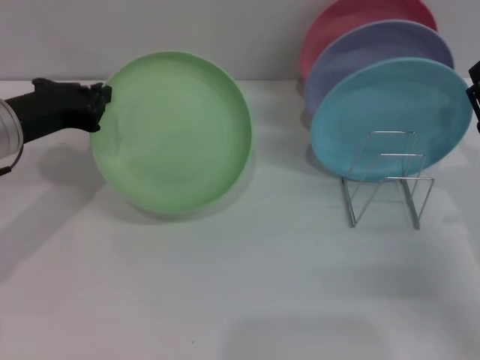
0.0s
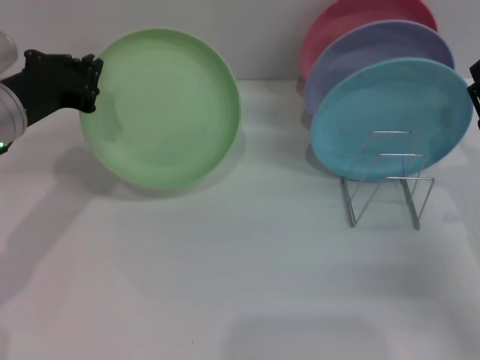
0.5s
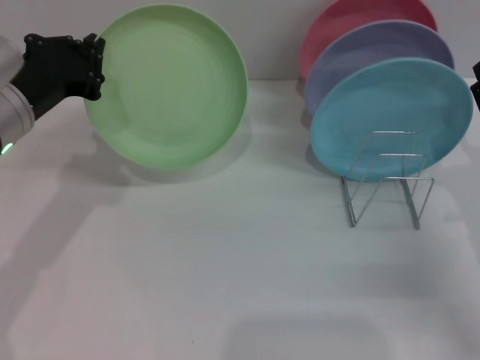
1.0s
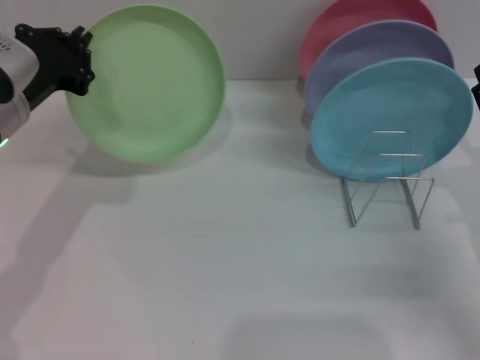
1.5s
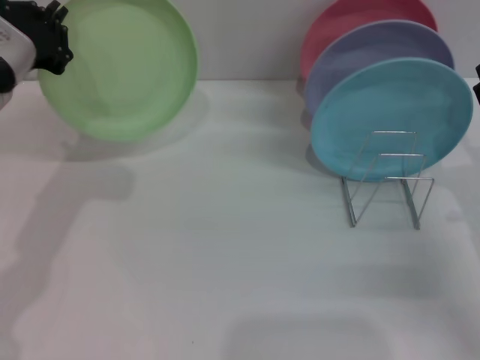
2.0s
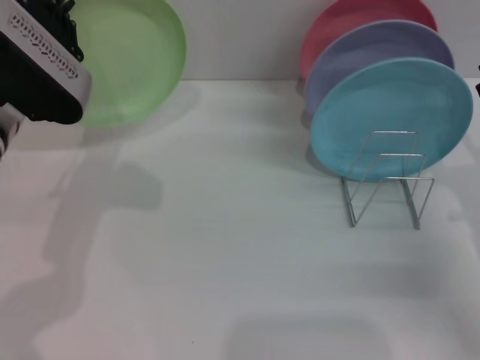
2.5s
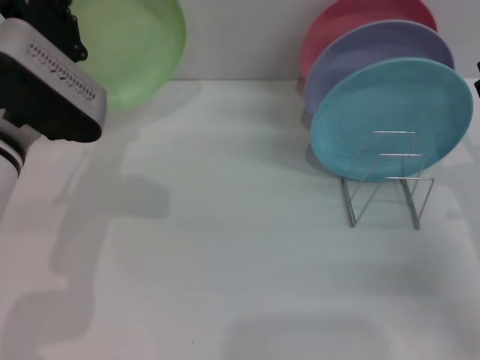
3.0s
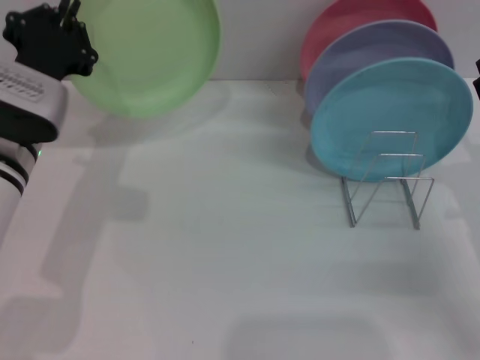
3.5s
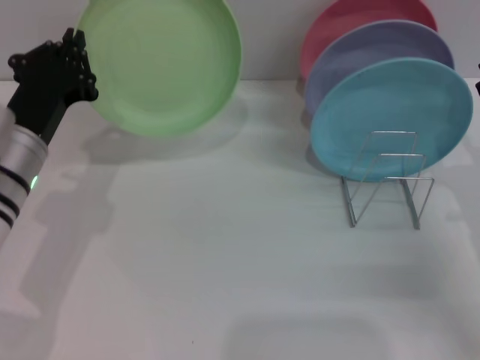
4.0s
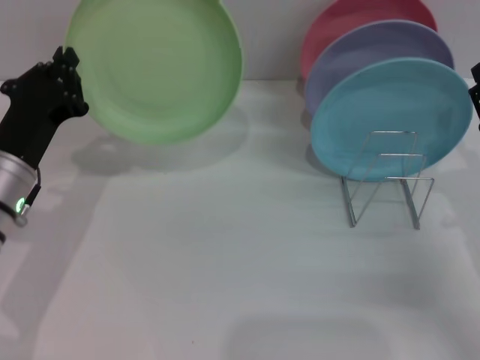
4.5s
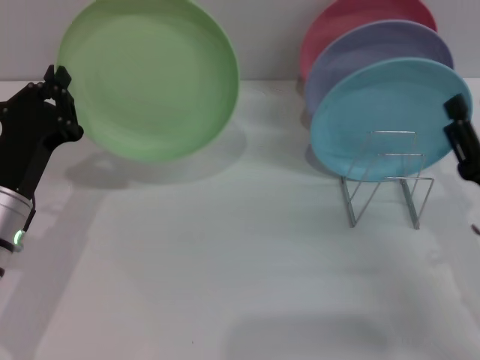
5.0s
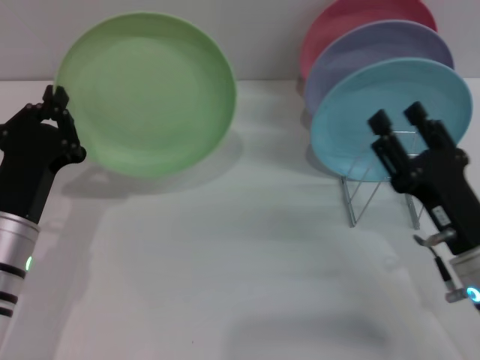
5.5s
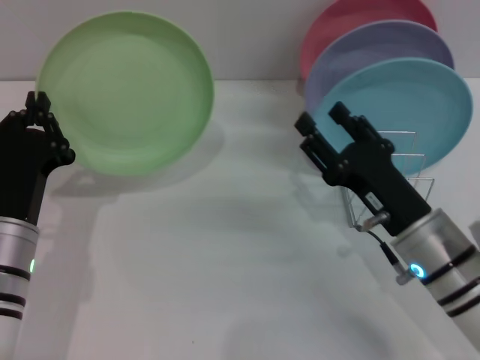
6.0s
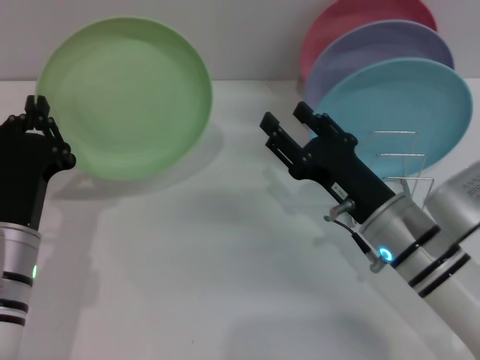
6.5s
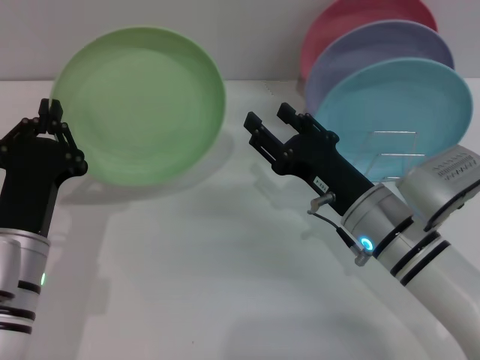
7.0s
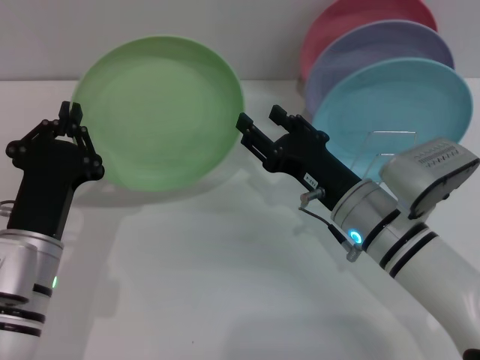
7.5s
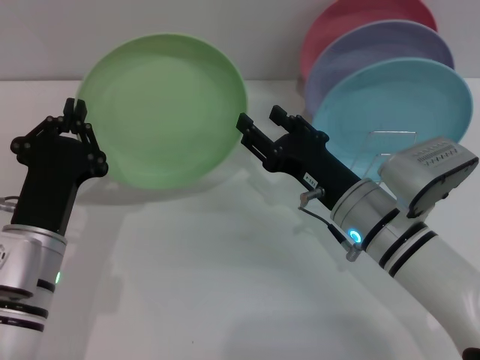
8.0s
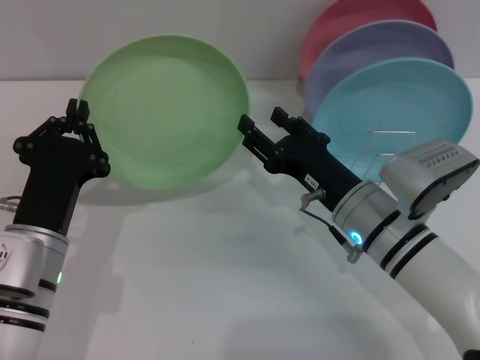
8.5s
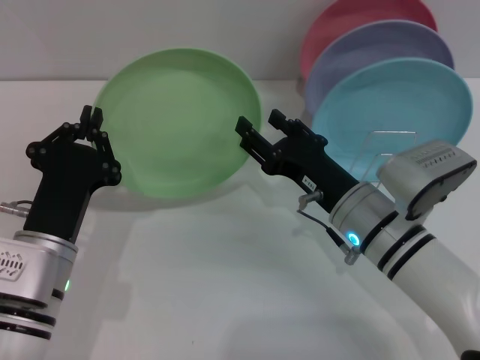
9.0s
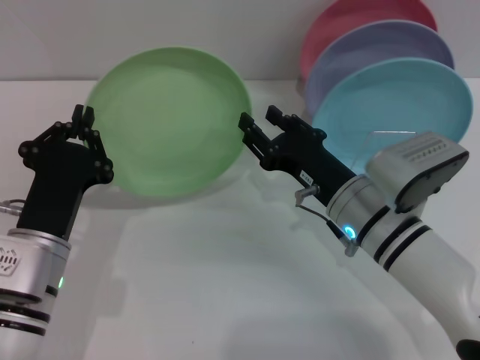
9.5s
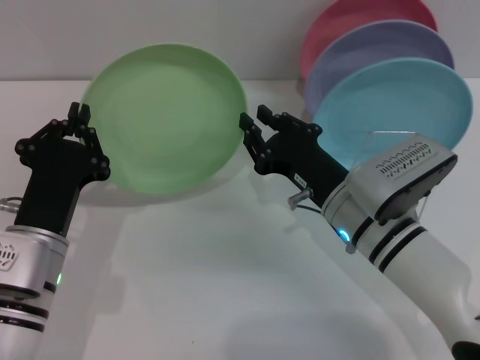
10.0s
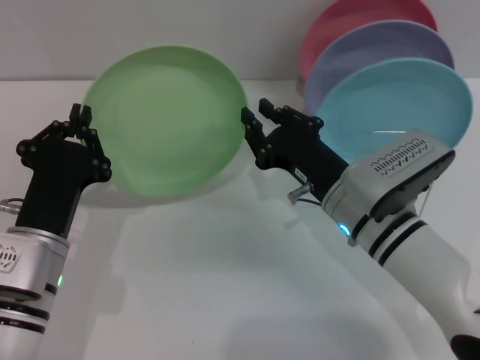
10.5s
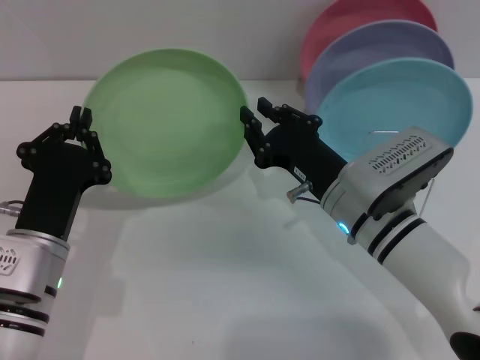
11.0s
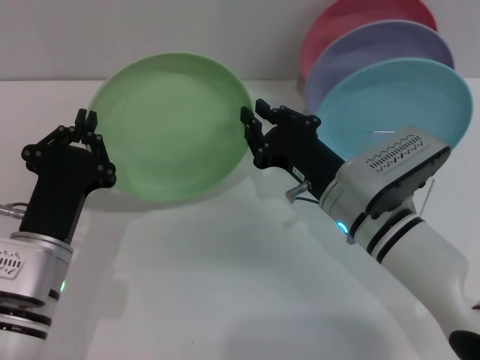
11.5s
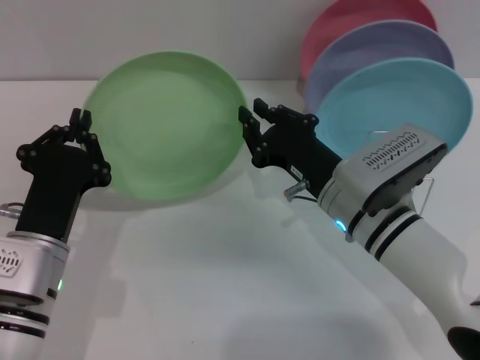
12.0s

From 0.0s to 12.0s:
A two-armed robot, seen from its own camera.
Task of the whole recording: Grip the plate with one hand, pass it to the other, then set it on the shelf.
From 2.0s to 4.0s: The left gripper heads downward, covering approximately 5 cm.
From 4.0s to 6.0s: The left gripper travels backward by some 5 cm. Meanwhile the right gripper moves to the left, roughly 10 cm.
From 6.0s to 8.0s: The right gripper ends up about 5 cm from where it was.
From 8.0s to 10.0s: The right gripper closes.
From 10.0s to 12.0s: Both grippers stay about where they are.

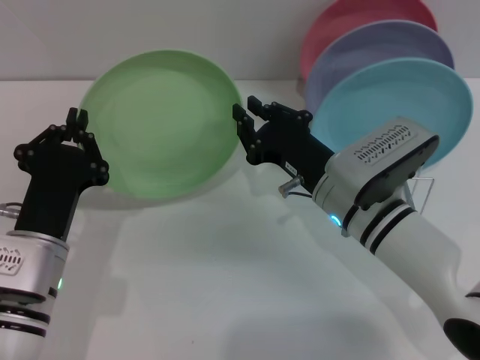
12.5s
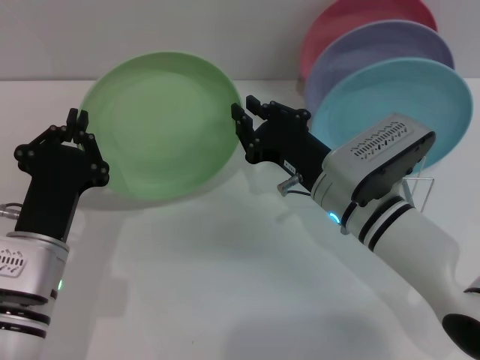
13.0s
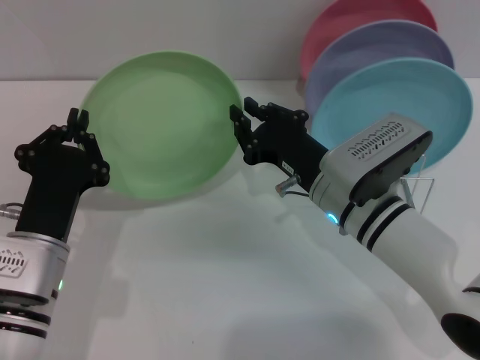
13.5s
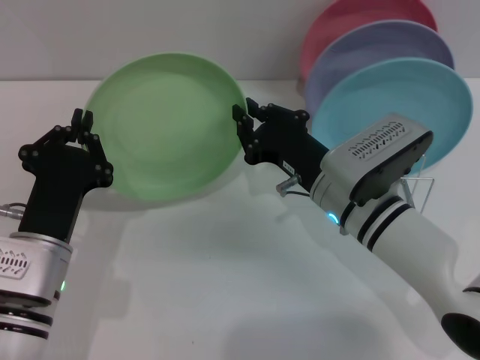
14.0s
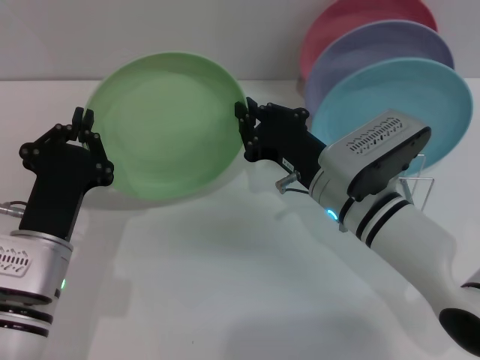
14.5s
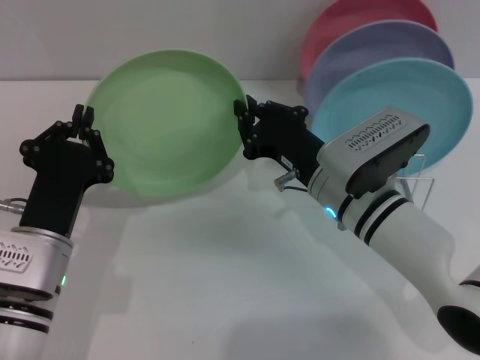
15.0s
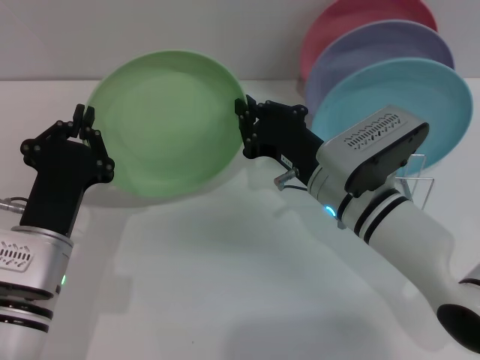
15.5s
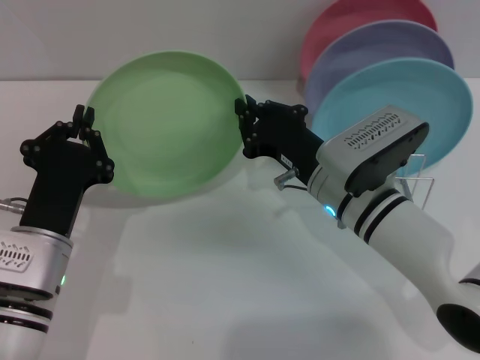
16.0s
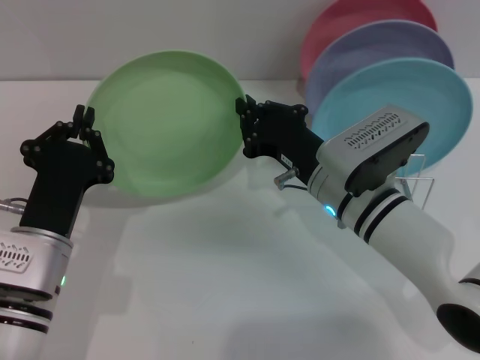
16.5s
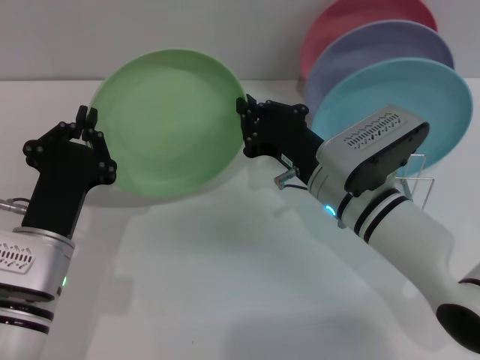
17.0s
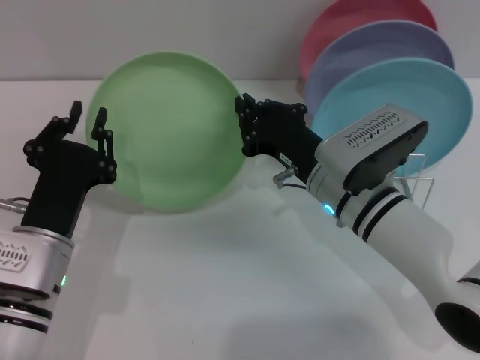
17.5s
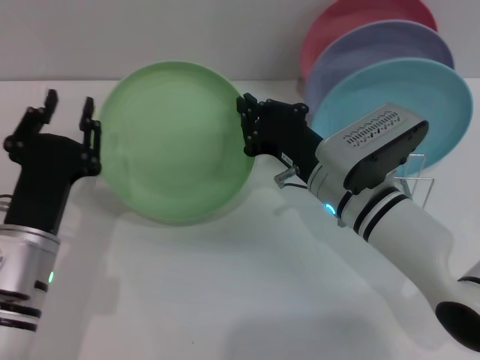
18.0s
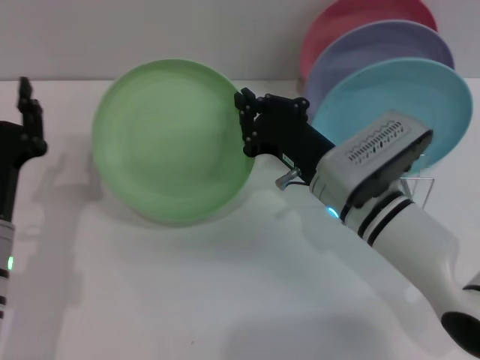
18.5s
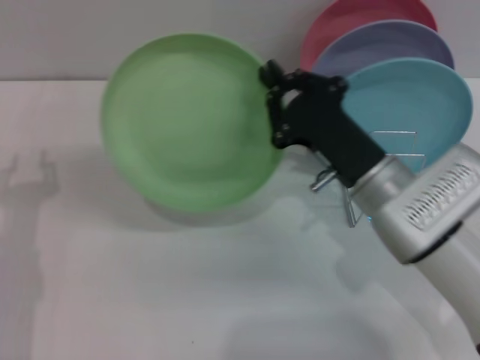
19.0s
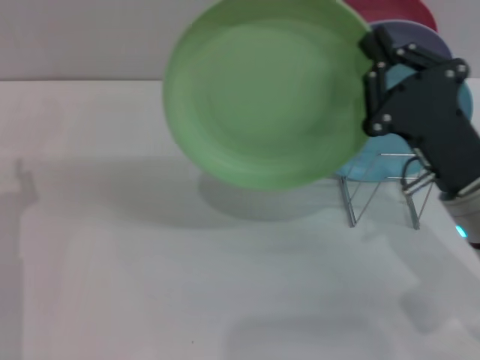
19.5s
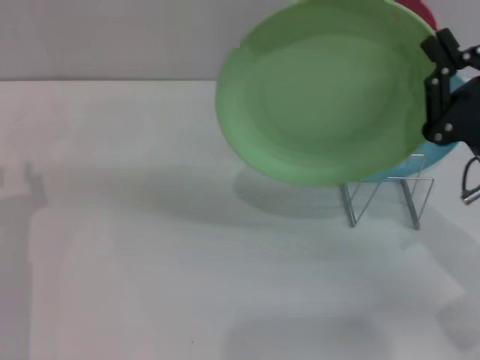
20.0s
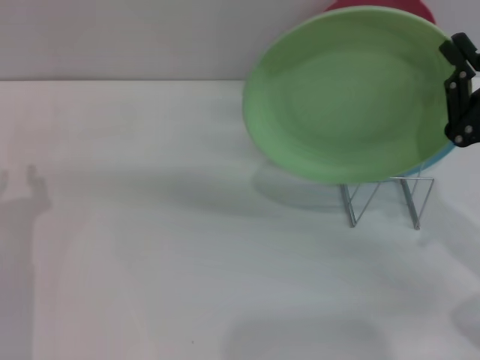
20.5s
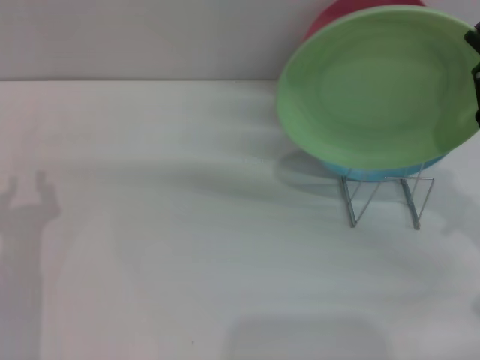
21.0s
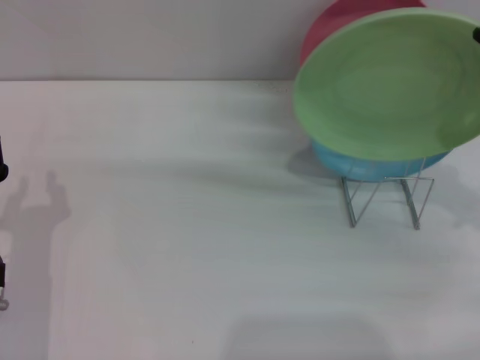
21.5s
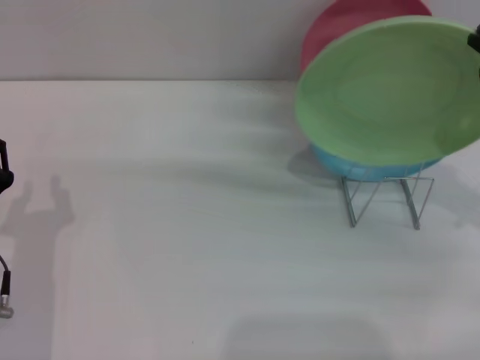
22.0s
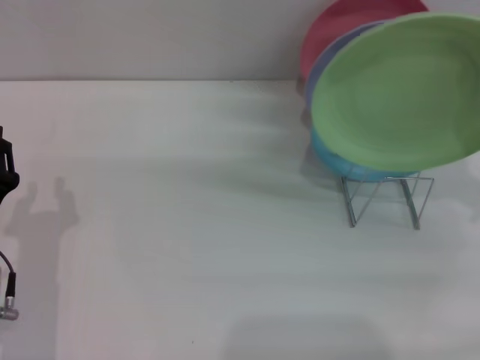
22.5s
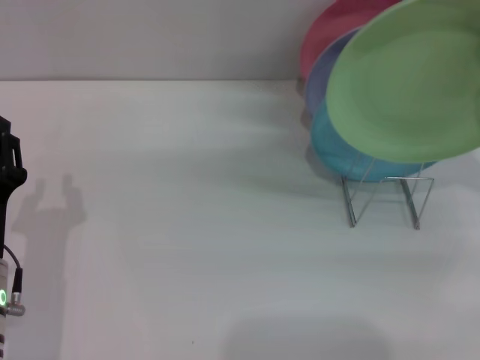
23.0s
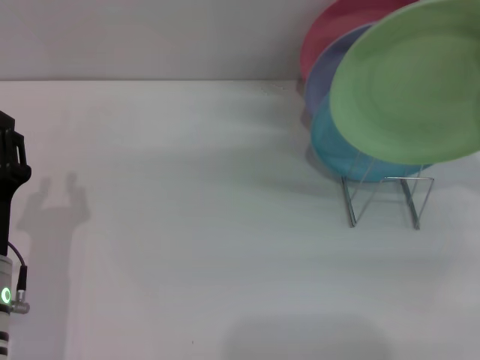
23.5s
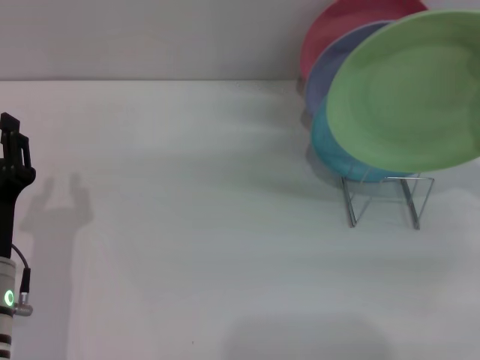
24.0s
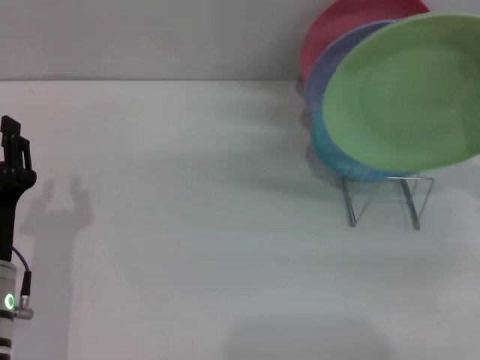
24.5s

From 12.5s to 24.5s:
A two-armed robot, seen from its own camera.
Task of the whole recording: Grip the plate with one hand, pass it to the other, then set it on the shelf.
Step, from 12.5s to 17.5s: Pass the plate from the left gripper to the right gripper.
From 12.5s to 16.5s: Both grippers stay about where they are.
From 16.5s to 18.5s: The left gripper opens.
From 18.5s to 20.5s: The right gripper travels to the right by roughly 15 cm.
From 20.5s to 22.5s: The right gripper heads to the right, covering approximately 5 cm.
From 22.5s to 24.5s: There are only small adjustments of the grippers.

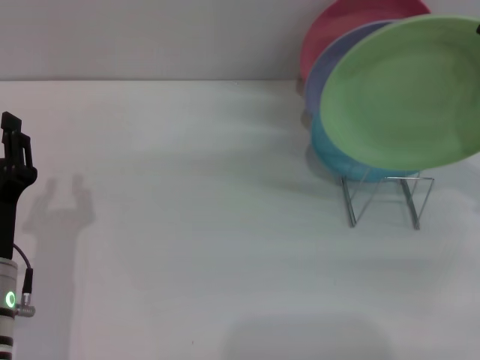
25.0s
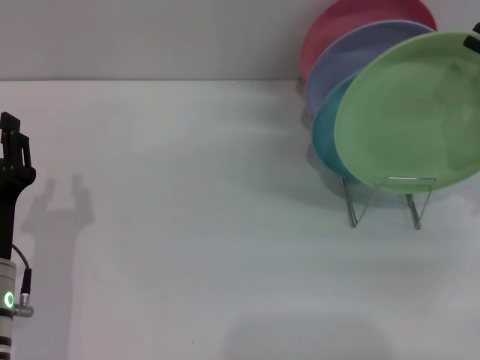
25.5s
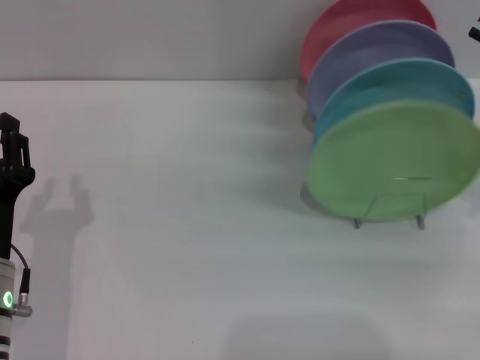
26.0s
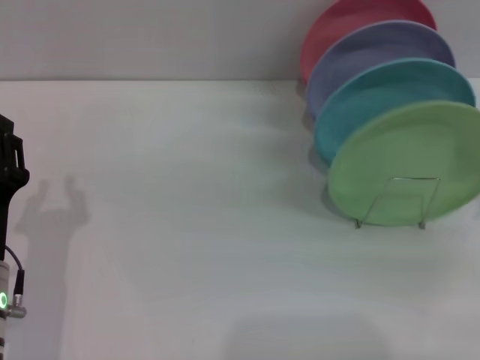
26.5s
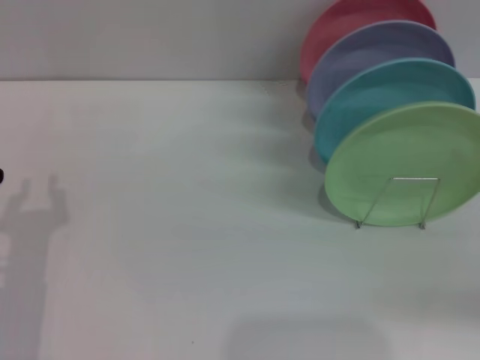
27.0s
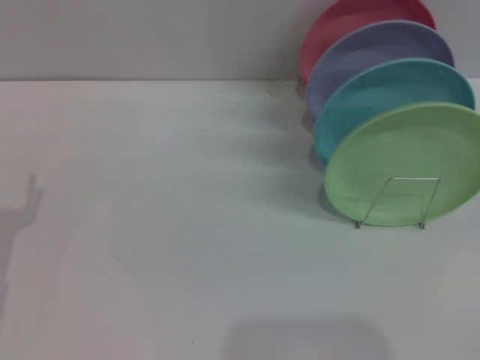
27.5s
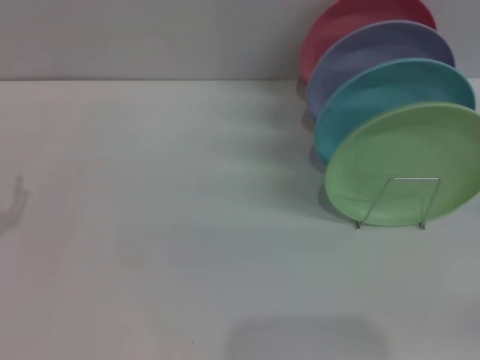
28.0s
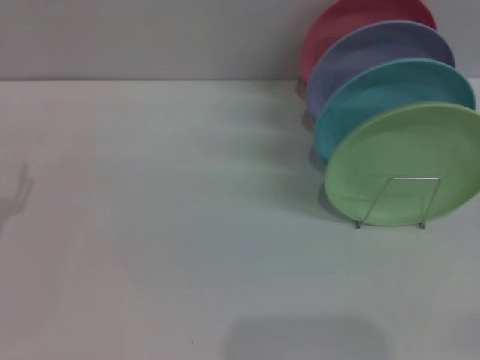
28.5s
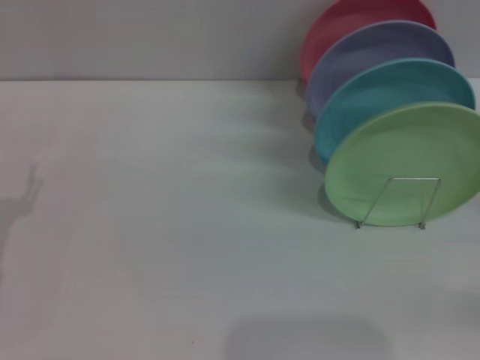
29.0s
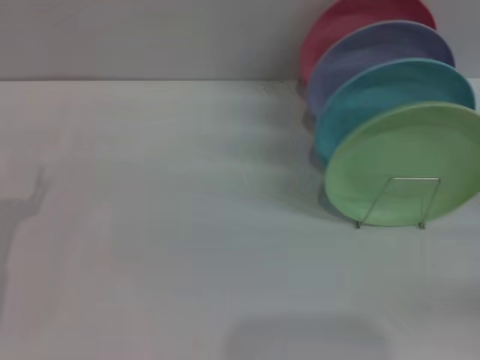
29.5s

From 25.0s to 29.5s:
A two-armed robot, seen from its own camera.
Task of the whole recording: Grip the plate with one hand, pass it to the other, then set it on the shelf.
From 25.0s to 27.0s: The right gripper heads backward and to the right, covering some 10 cm.
From 27.0s to 29.5s: The right gripper shifts about 10 cm downward, and opens up.
